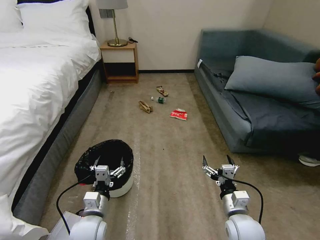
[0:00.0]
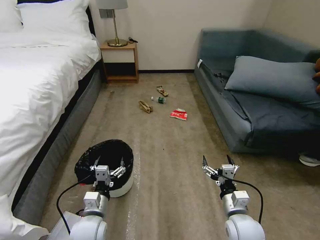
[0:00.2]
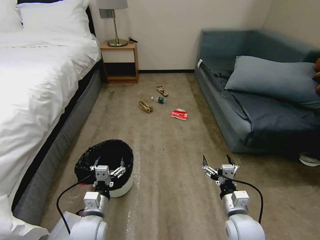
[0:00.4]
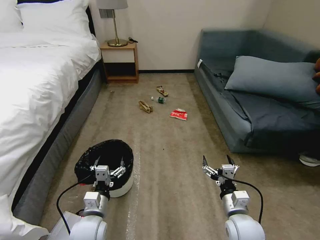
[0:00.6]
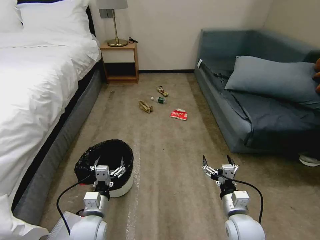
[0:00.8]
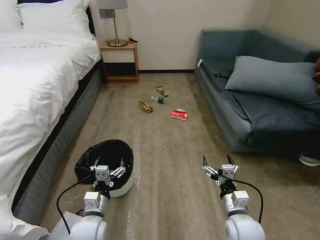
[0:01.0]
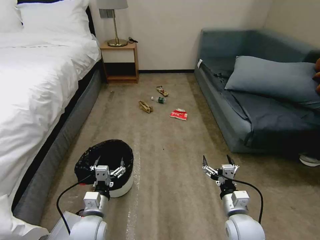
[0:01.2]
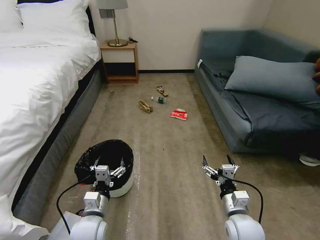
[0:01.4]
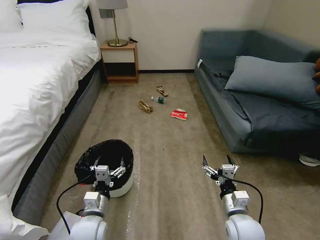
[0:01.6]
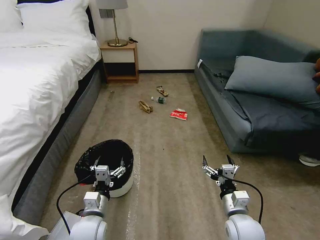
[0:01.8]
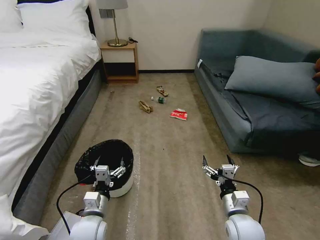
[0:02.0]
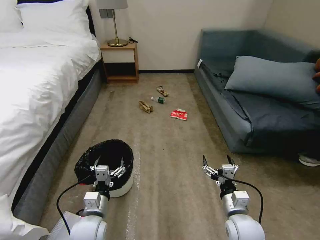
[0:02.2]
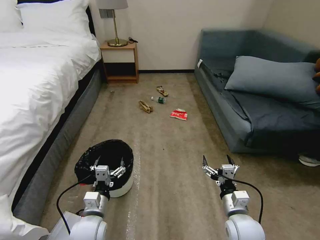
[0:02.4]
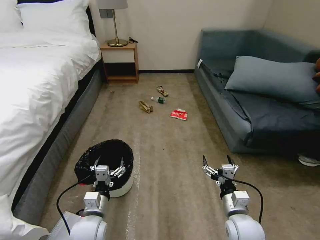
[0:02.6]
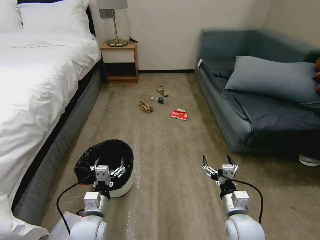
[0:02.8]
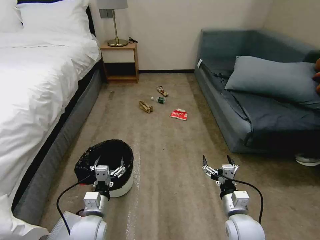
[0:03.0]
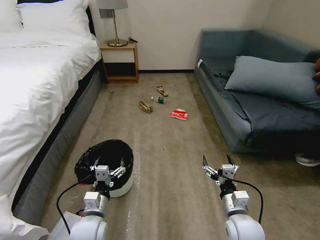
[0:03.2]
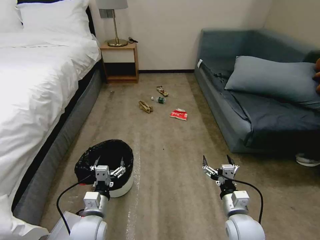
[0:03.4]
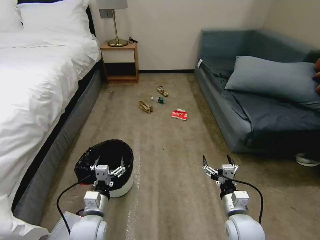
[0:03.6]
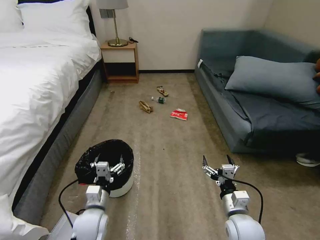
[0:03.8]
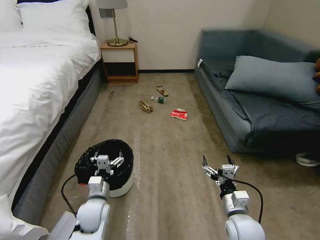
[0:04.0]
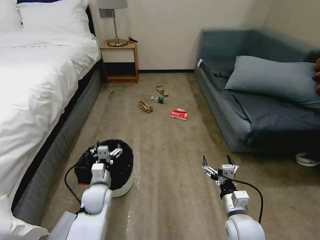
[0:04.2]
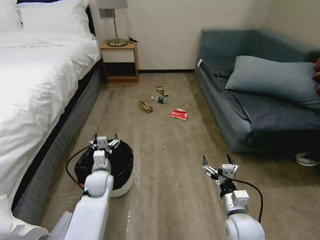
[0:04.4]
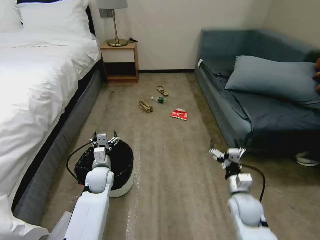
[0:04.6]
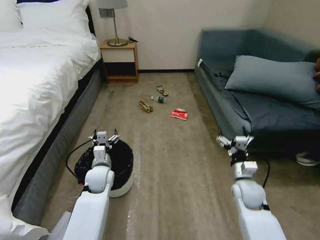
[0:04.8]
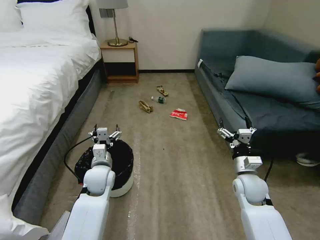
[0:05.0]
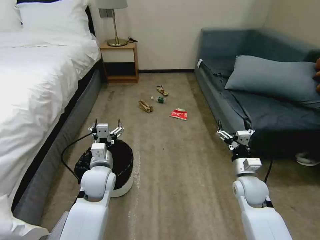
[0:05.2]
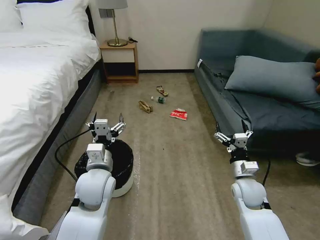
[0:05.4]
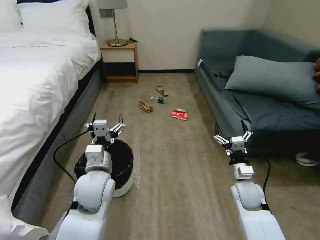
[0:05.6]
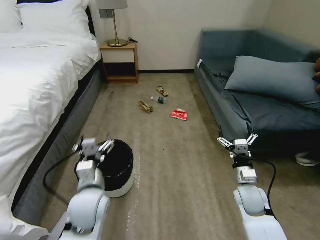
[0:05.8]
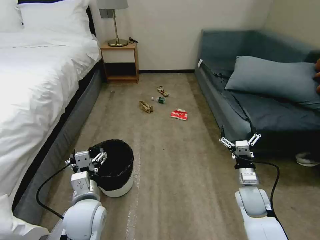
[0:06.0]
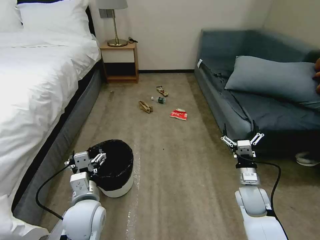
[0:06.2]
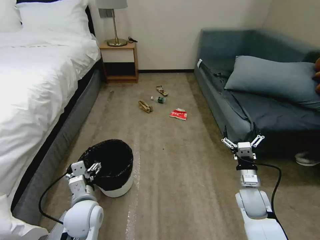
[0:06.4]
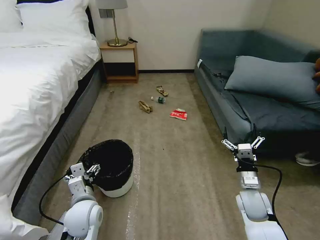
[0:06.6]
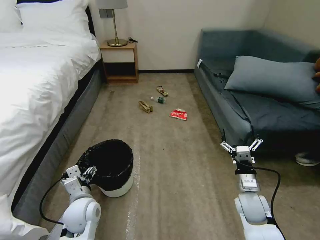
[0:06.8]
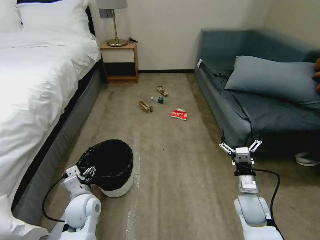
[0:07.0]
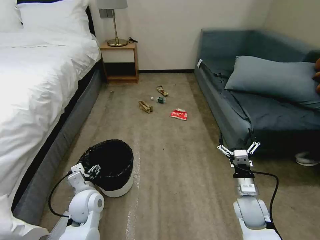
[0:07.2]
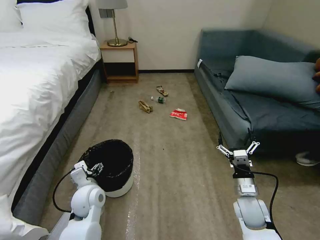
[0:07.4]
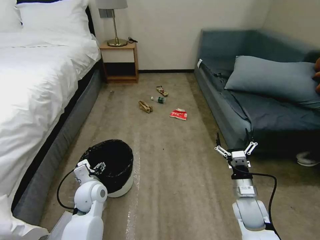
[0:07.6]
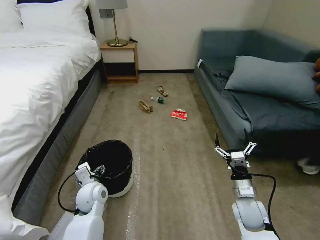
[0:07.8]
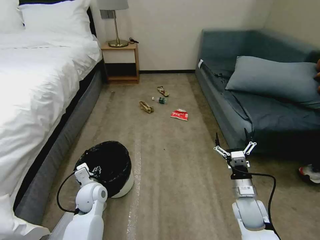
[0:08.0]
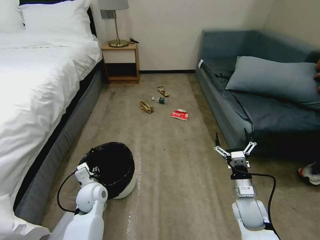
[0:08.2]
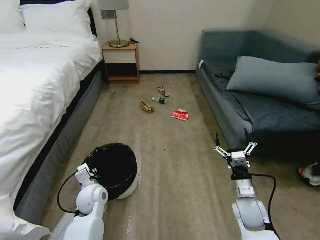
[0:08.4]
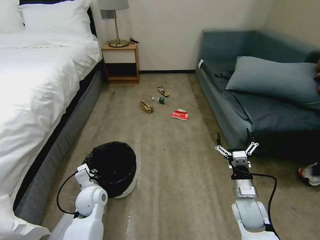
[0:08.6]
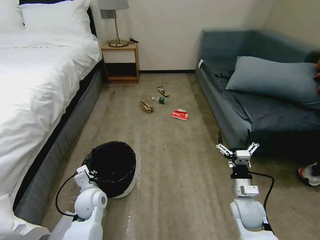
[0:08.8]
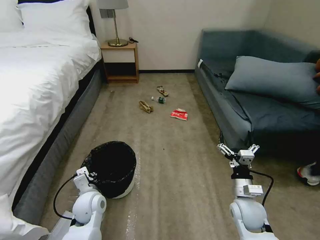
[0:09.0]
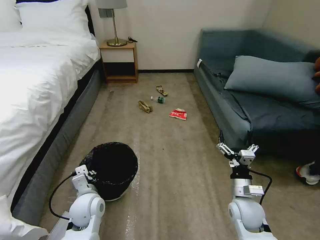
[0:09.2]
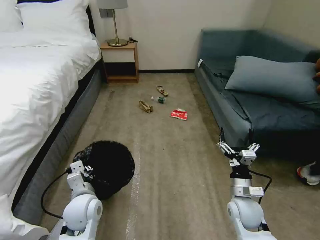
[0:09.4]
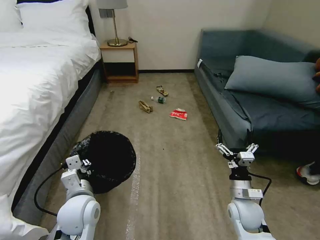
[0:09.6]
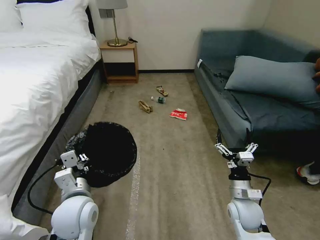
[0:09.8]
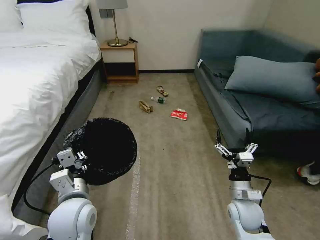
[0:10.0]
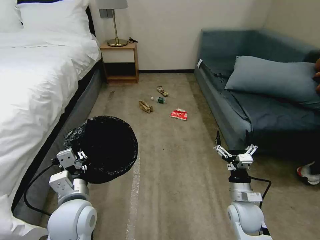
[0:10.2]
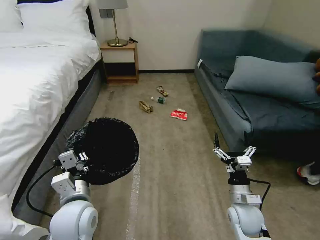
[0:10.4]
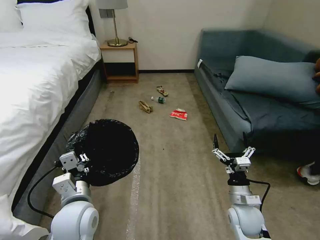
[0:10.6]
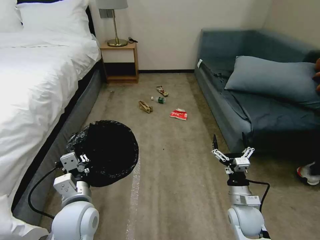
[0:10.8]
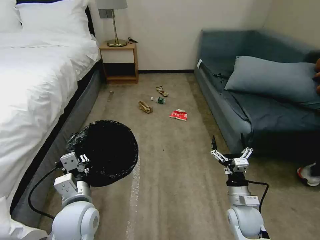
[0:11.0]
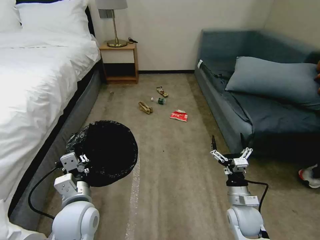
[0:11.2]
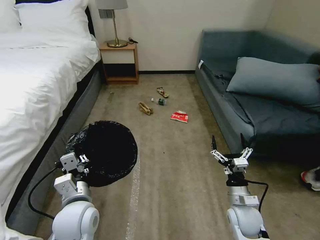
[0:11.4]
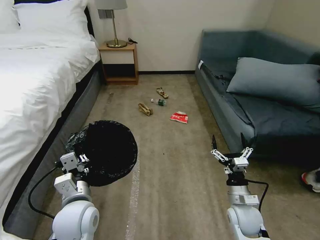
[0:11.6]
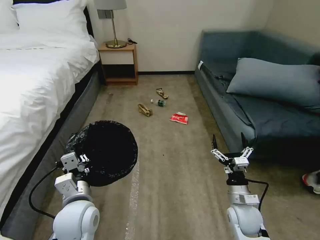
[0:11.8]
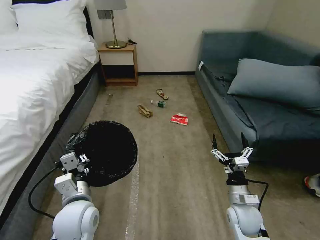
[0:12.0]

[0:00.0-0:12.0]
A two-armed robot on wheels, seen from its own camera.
Task of the whole recording: Pick up the trash bin, then pick up the garbage on the floor and place it into the trash bin.
0:01.6 to 0:03.0: The two grippers keep their place.
0:03.0 to 0:04.4: The left gripper goes some 15 cm forward.
0:04.4 to 0:06.0: The left gripper goes some 15 cm backward and upward; the right gripper is displaced forward and to the right by approximately 10 cm.
0:06.0 to 0:07.6: The left gripper travels forward and downward by about 10 cm.
0:07.6 to 0:09.0: The left gripper closes up.
0:09.0 to 0:10.4: The left gripper is displaced upward and backward by about 15 cm.
0:10.4 to 0:12.0: The grippers make only small movements.

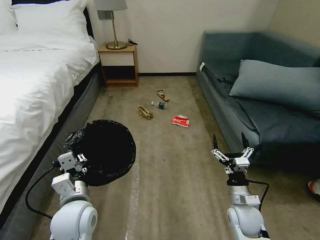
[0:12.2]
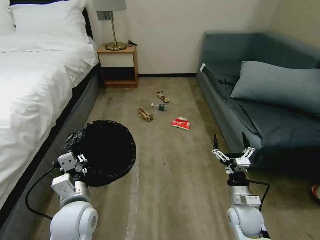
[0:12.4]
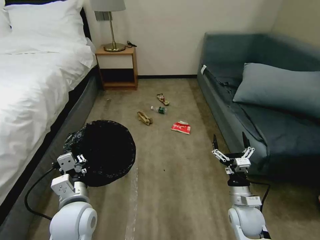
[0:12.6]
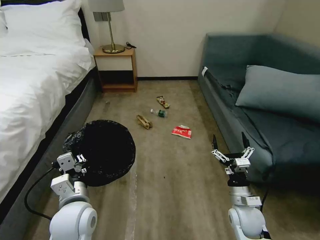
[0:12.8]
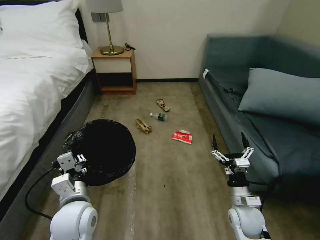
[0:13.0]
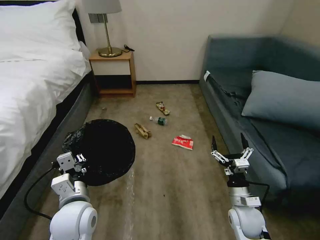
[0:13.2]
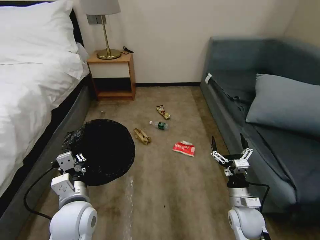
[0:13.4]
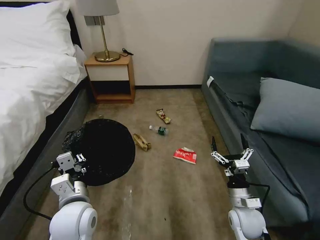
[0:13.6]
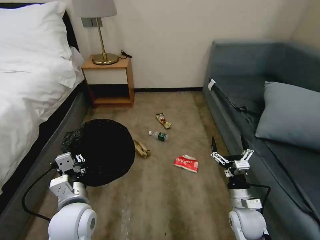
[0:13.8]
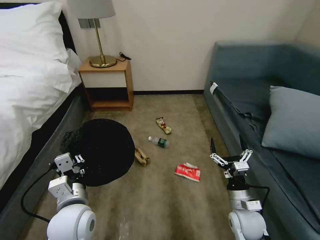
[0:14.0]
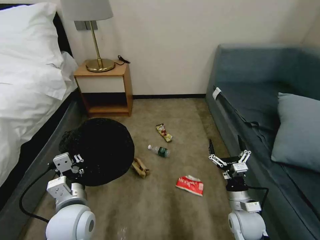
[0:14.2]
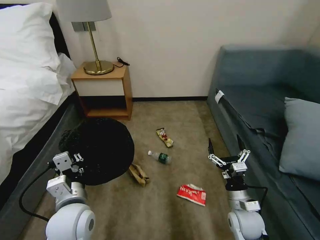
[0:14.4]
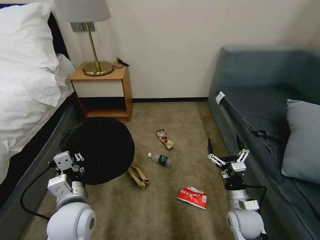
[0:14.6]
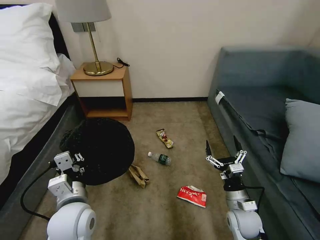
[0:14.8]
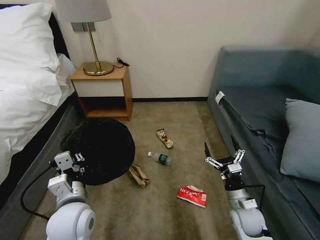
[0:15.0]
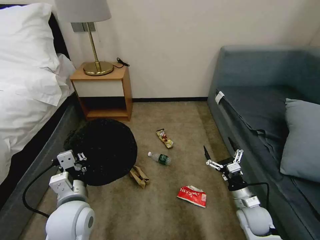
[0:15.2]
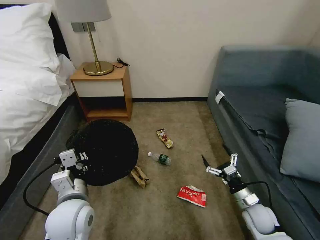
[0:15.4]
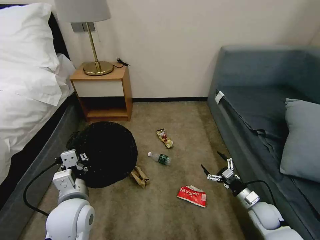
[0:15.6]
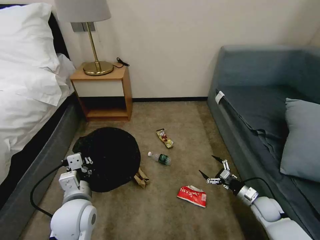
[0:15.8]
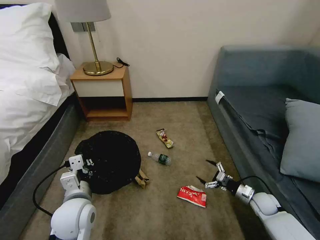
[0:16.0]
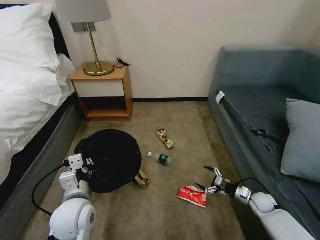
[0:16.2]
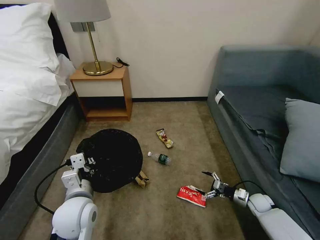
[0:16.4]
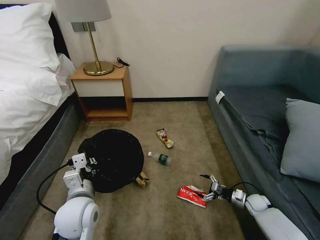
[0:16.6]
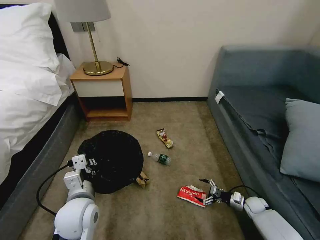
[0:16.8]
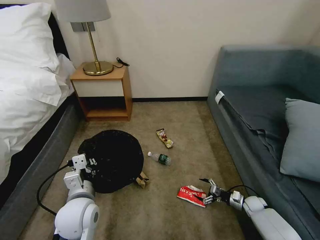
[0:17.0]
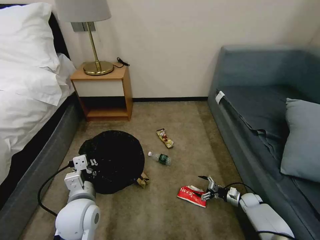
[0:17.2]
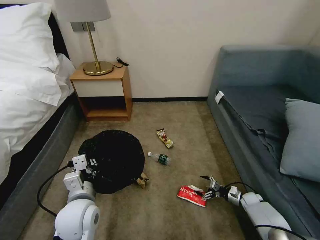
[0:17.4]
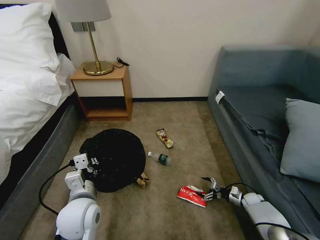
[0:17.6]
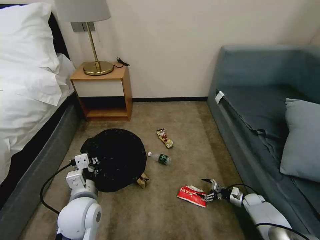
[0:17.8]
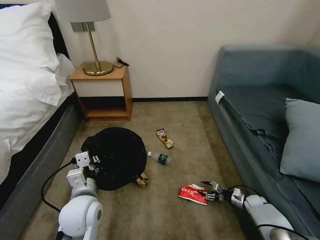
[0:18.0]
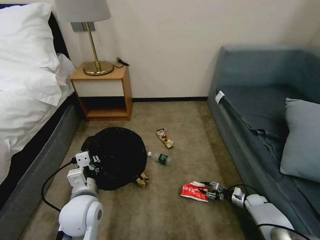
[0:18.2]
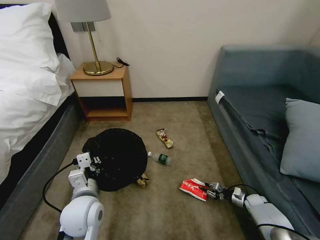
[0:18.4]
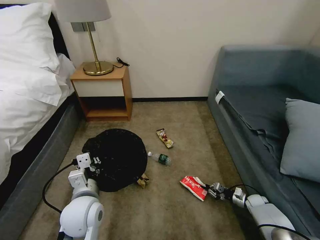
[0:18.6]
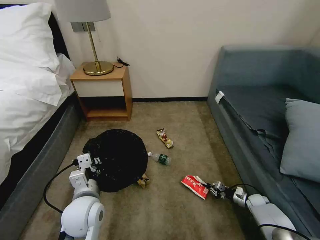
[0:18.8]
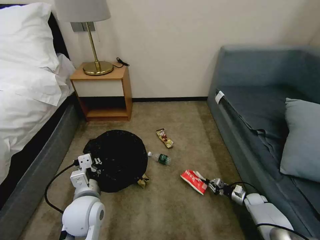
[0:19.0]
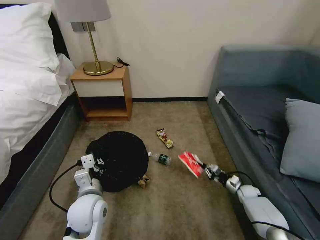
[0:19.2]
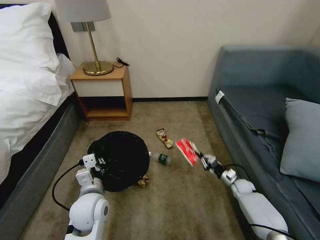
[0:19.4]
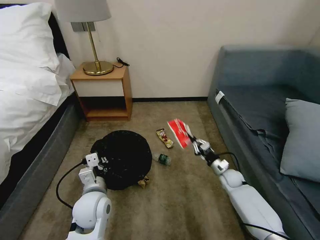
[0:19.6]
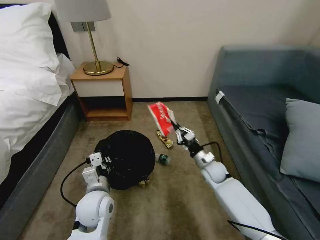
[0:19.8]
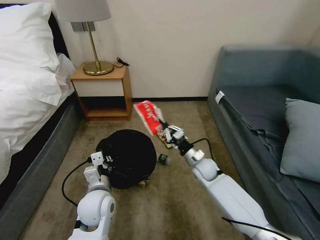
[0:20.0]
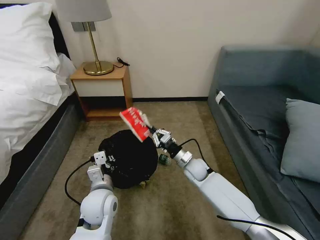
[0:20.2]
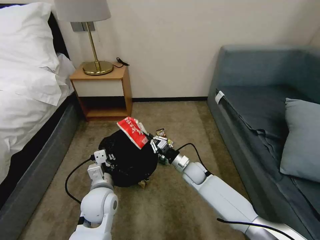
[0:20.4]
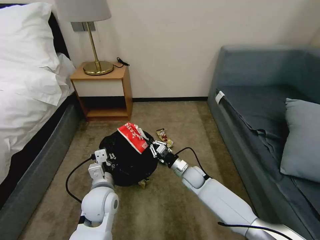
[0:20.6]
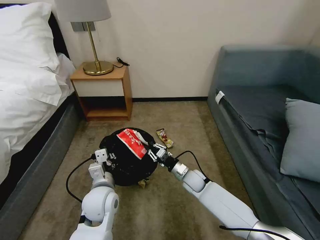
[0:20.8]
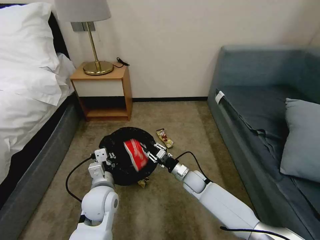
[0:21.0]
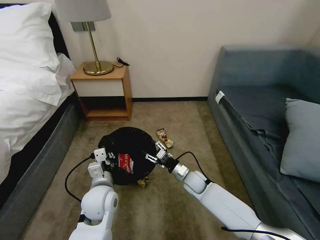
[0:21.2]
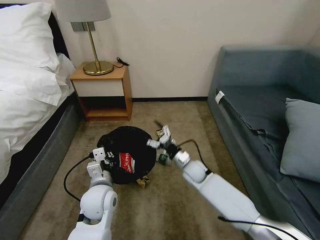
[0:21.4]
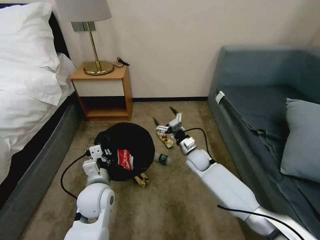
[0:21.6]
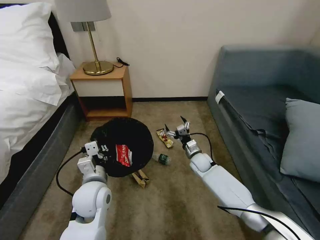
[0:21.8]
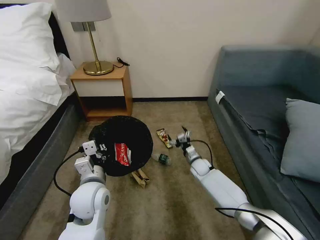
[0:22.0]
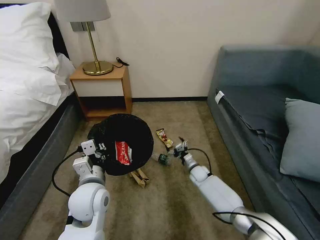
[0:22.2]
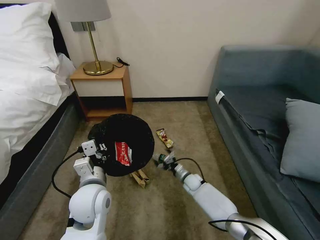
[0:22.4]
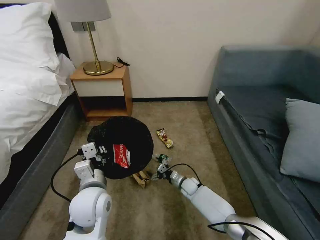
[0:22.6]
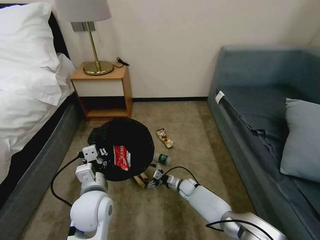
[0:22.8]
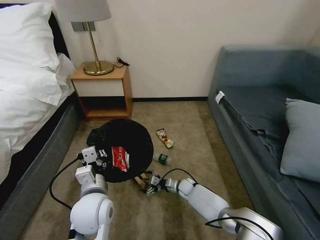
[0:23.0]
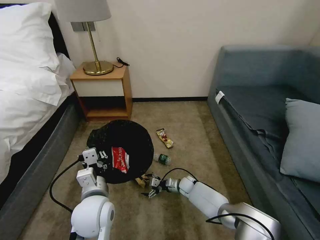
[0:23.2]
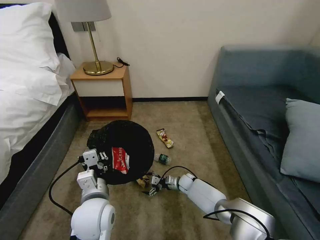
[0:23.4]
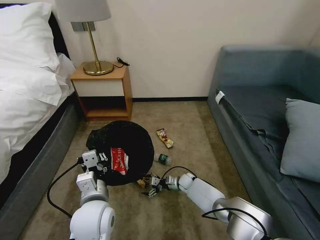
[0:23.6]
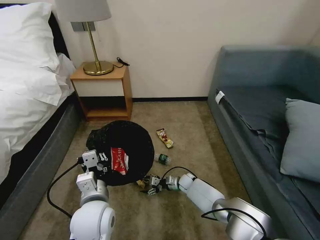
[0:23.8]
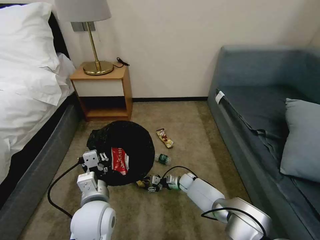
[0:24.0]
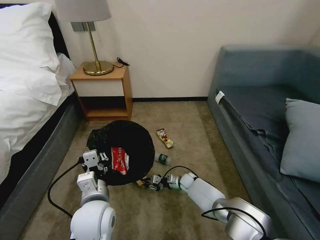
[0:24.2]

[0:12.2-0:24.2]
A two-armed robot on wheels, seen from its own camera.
Task of the whole recording: Pick up the trash bin, then pick up the garbage on the floor and place it into the trash bin.
0:13.8 to 0:15.2: The right gripper shifts by about 5 cm.
0:15.2 to 0:16.6: The right gripper shifts approximately 20 cm downward, to the right and forward.
0:16.6 to 0:18.2: The right gripper changes place by about 5 cm, and closes.
0:18.2 to 0:19.8: The right gripper is displaced to the left and upward by roughly 30 cm, and closes its fingers.
0:19.8 to 0:21.2: The right gripper shifts about 10 cm to the left, and opens its fingers.
0:21.2 to 0:22.6: The left gripper moves about 5 cm; the right gripper goes roughly 10 cm downward, and opens its fingers.
0:22.6 to 0:24.2: The right gripper closes.
